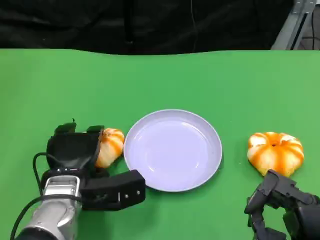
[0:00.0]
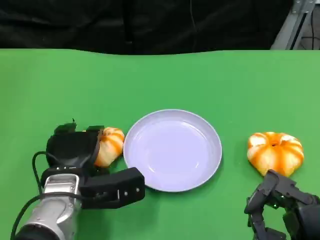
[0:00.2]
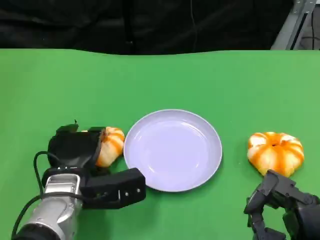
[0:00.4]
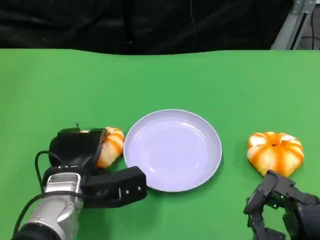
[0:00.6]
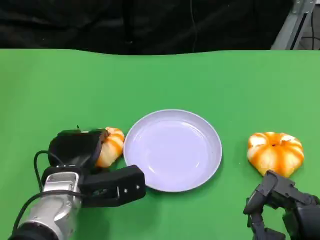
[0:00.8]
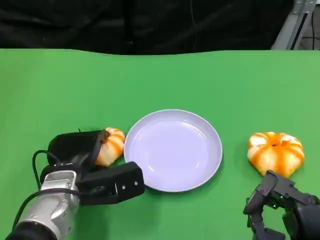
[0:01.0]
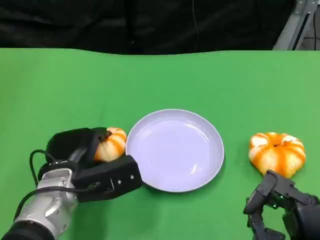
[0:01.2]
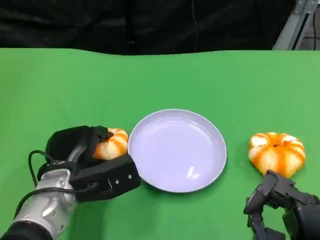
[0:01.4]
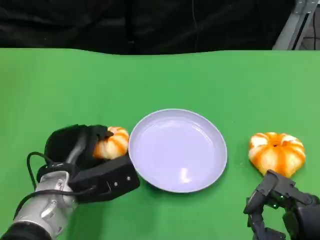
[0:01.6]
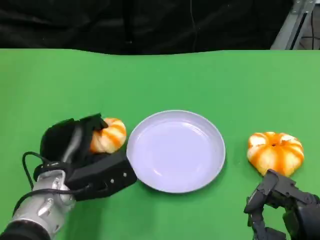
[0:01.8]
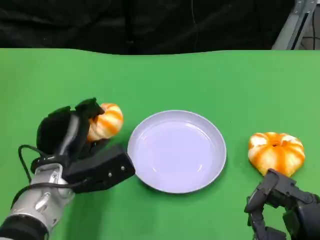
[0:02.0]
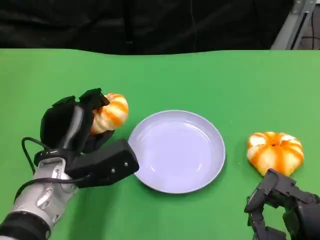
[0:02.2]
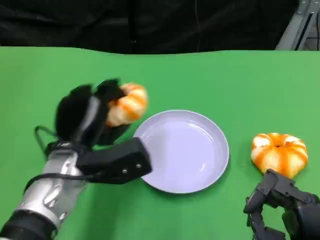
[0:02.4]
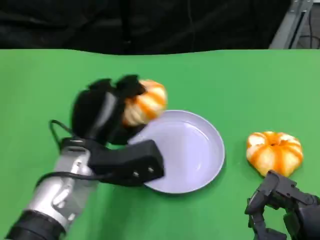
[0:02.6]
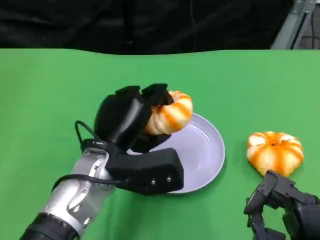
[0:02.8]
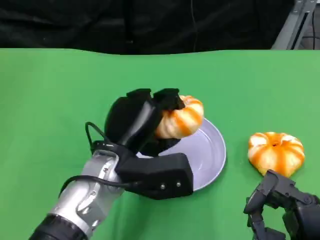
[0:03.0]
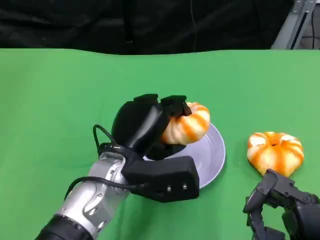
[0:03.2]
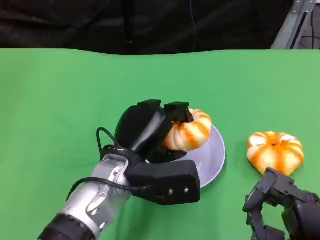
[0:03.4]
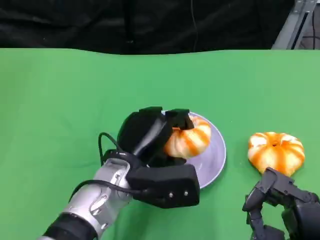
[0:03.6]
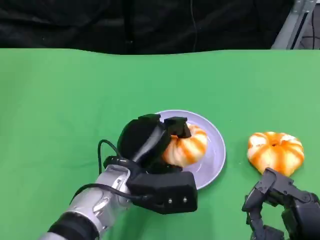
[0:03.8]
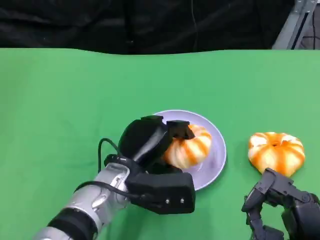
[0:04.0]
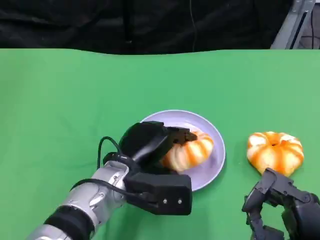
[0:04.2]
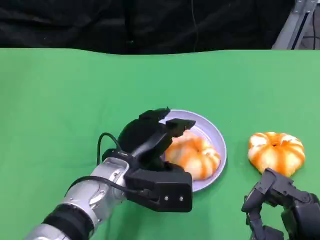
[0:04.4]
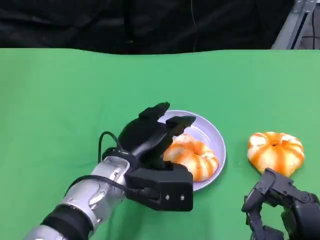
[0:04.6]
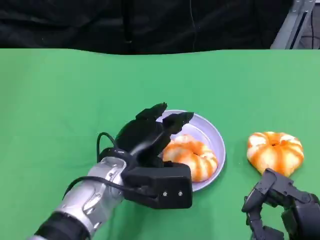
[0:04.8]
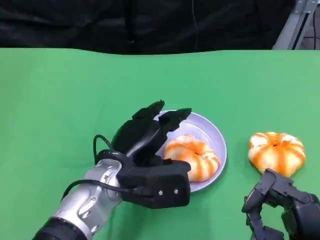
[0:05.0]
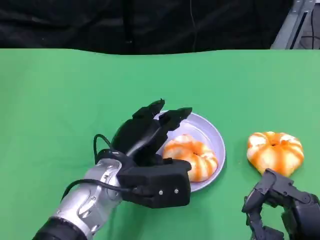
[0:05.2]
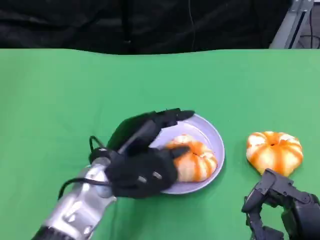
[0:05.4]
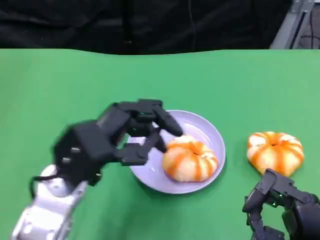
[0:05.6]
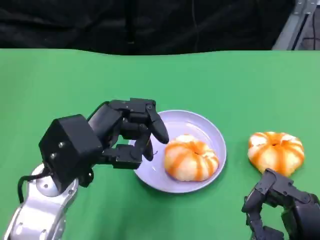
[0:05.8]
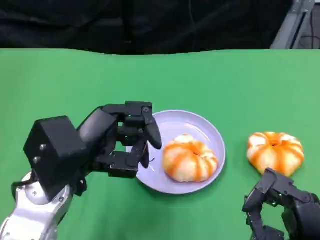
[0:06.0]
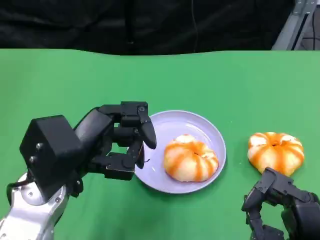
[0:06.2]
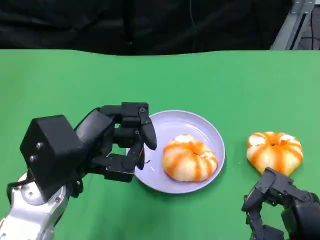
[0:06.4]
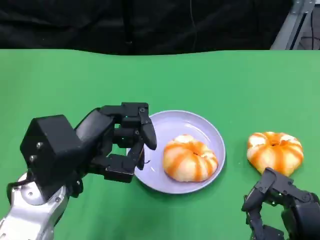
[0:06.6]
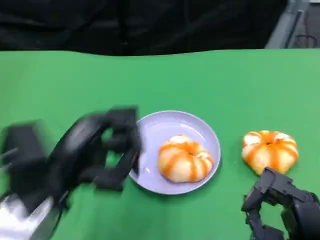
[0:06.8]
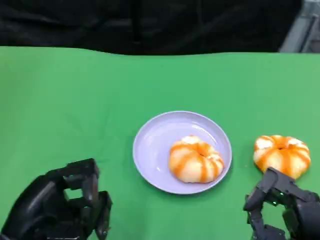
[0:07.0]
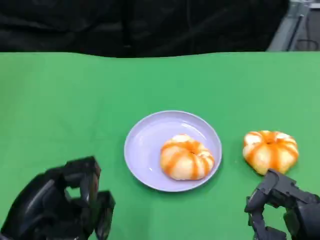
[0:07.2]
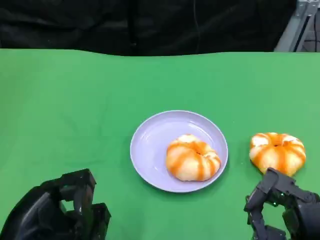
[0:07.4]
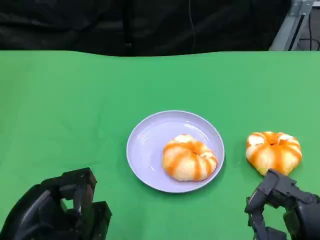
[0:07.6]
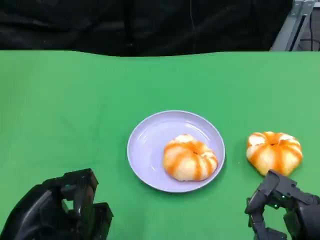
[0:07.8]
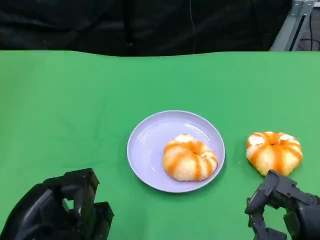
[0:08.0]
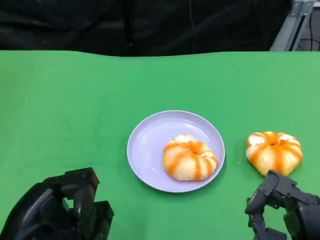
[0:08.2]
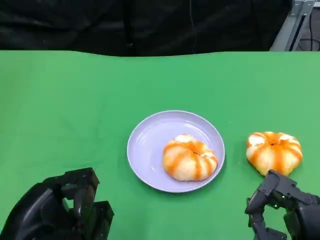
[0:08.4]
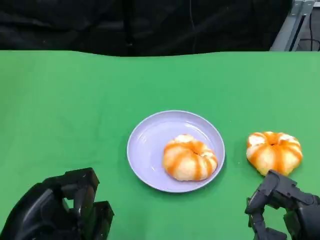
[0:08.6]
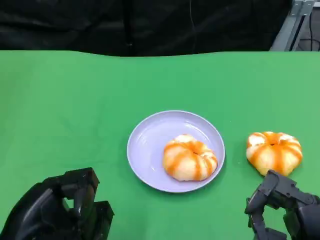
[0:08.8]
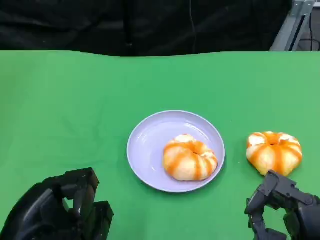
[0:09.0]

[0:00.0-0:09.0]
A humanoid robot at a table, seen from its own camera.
Task of the whole recording: Grasp the bread from the table and place it into the plate.
0:01.6 to 0:03.0: The left hand goes about 10 cm to the right and upward.
0:03.0 to 0:04.4: The hands move only a little.
0:04.4 to 0:06.0: The left hand heads to the left and upward, covering approximately 10 cm.
0:06.0 to 0:07.6: The left hand moves backward and to the left, some 10 cm.
0:07.6 to 0:09.0: Both hands stay about where they are.
